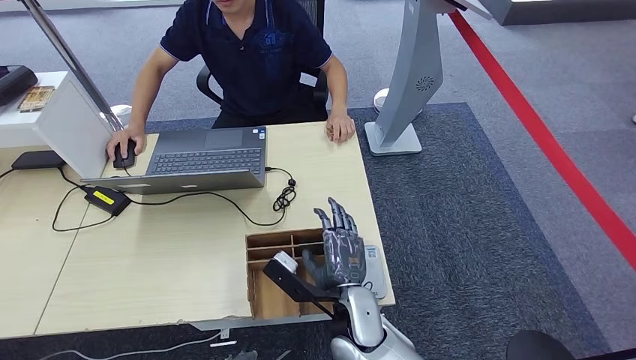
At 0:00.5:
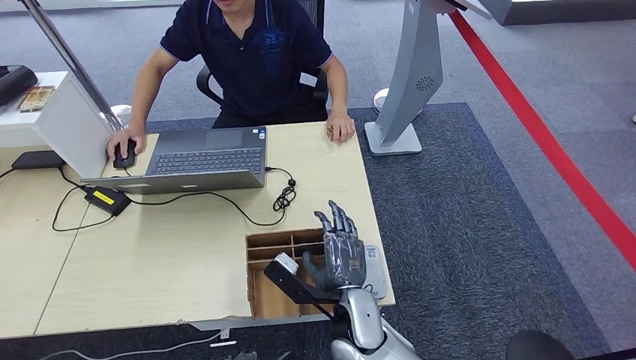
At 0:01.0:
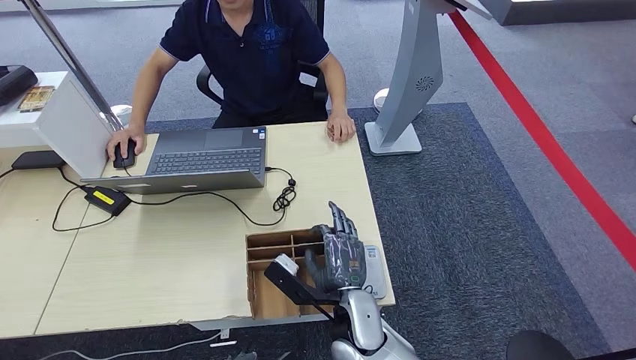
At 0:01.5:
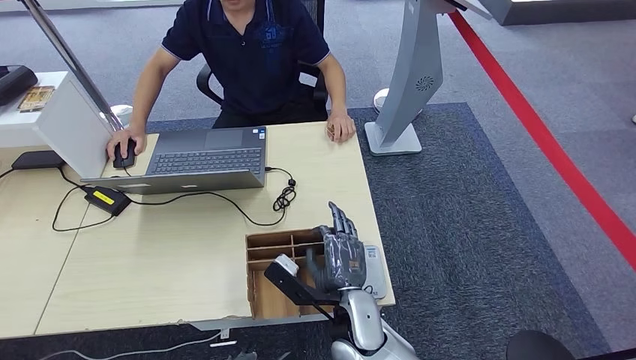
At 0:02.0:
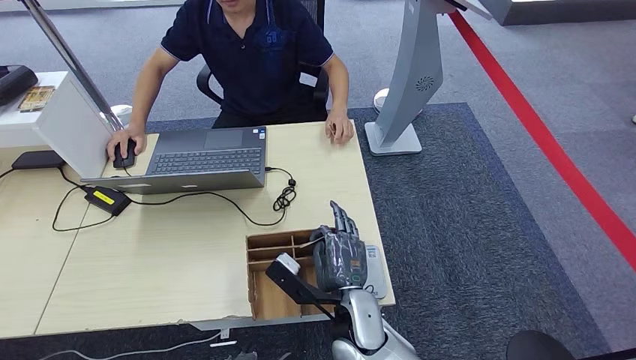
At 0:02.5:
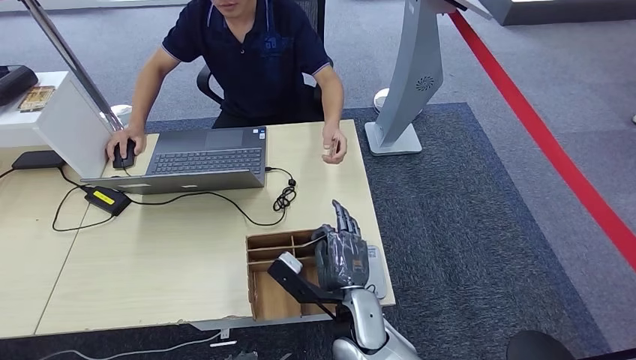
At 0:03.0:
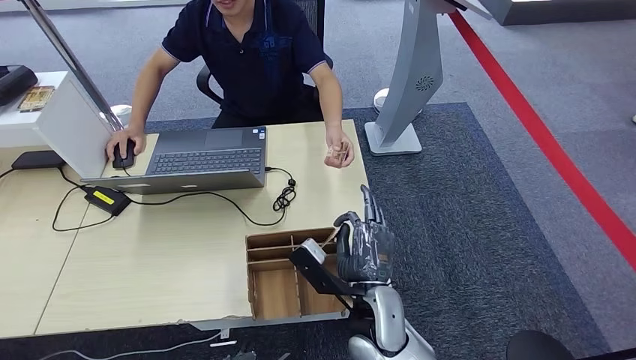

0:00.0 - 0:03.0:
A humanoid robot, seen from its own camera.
Step, 0:02.0 - 0:03.0: Hand the room key to the person.
0:00.0 - 0:01.5: Neither hand changes place.
0:01.5 - 0:03.0: The hands make only small movements.
